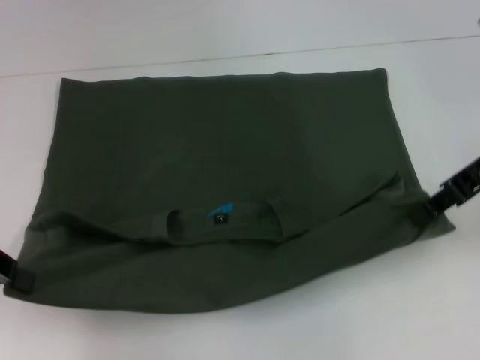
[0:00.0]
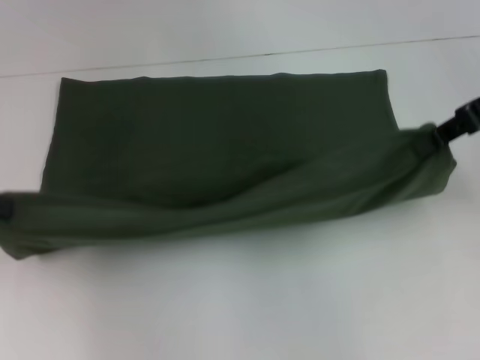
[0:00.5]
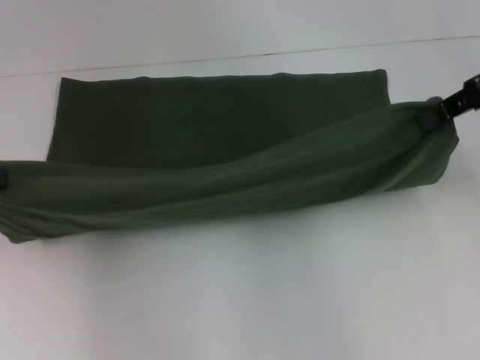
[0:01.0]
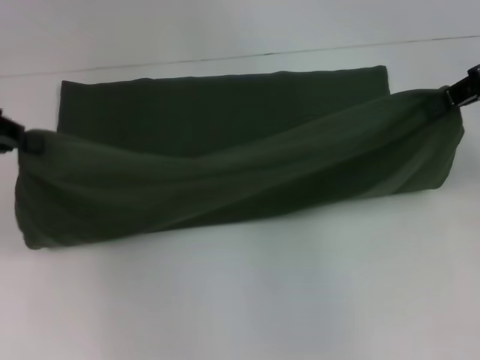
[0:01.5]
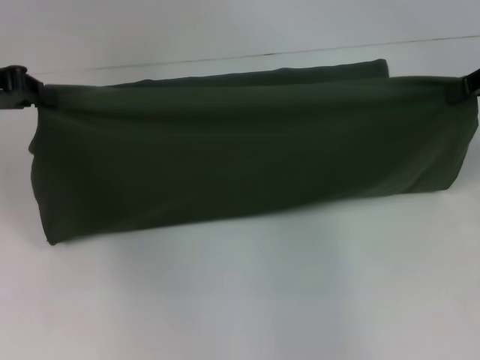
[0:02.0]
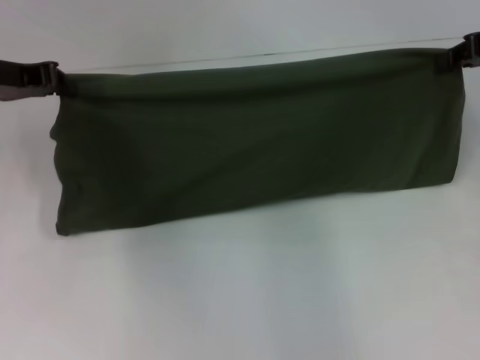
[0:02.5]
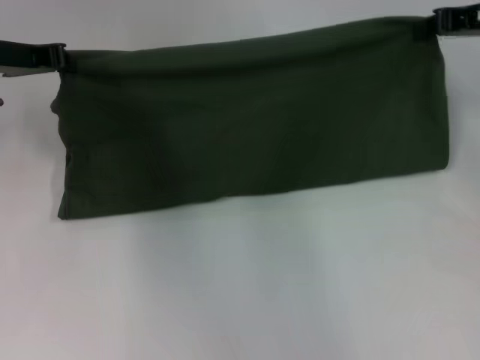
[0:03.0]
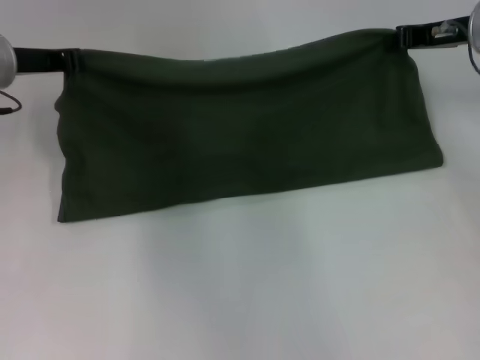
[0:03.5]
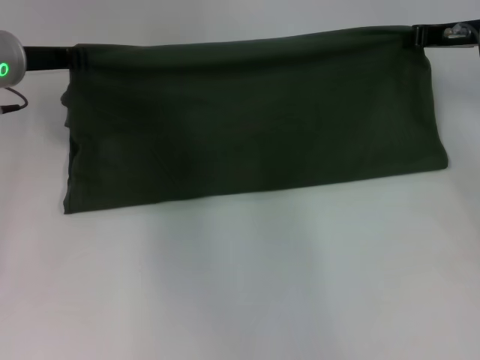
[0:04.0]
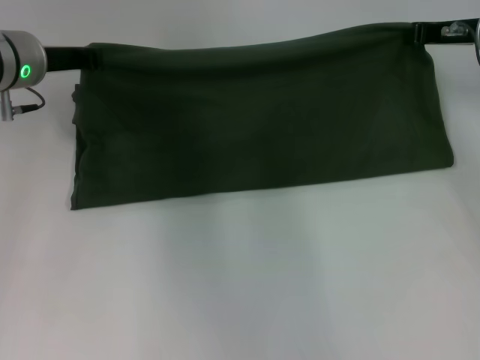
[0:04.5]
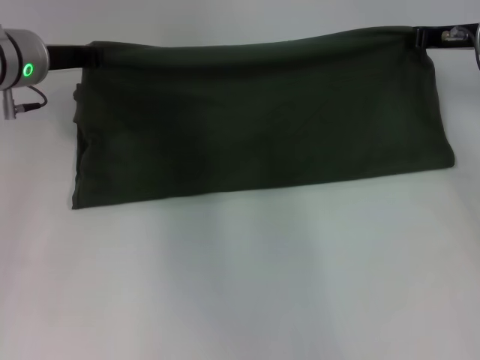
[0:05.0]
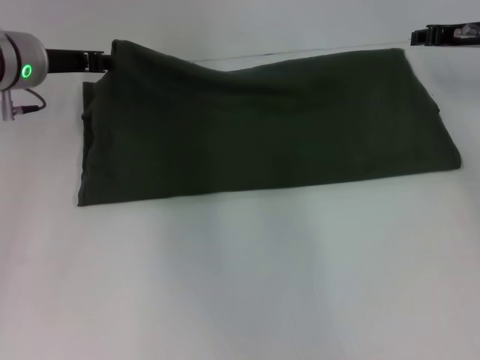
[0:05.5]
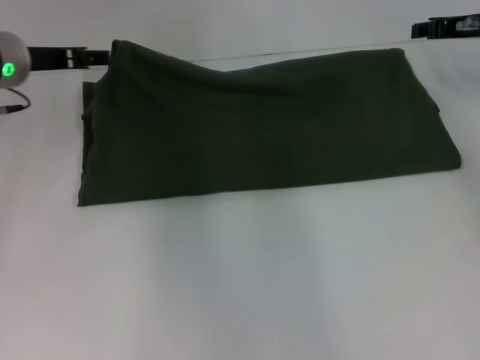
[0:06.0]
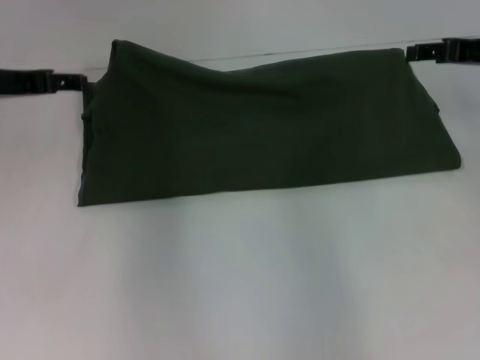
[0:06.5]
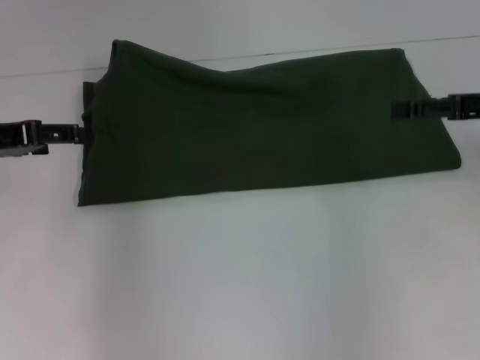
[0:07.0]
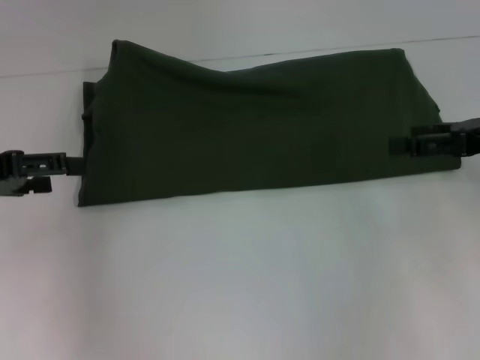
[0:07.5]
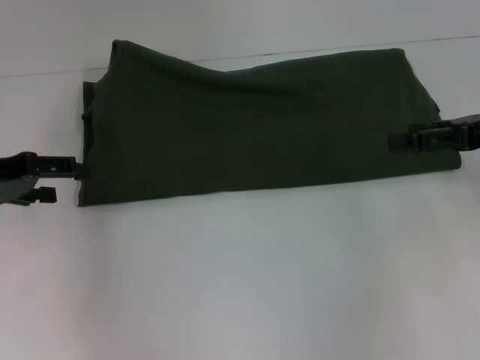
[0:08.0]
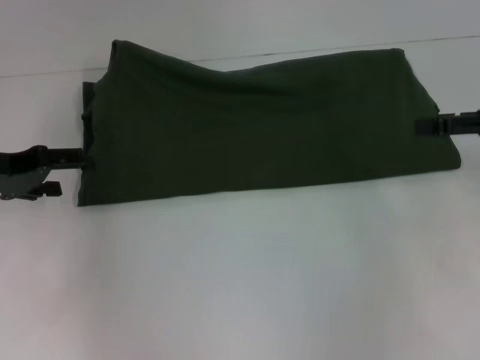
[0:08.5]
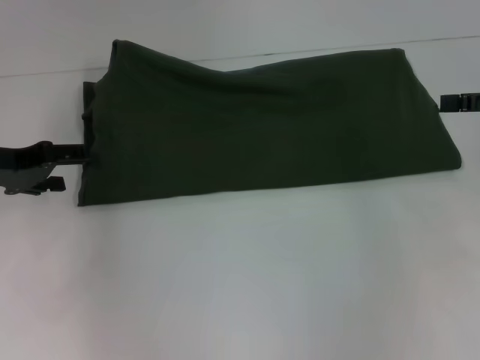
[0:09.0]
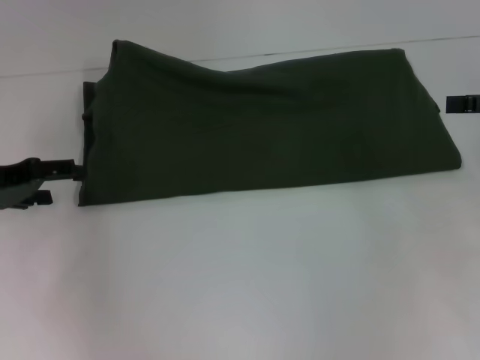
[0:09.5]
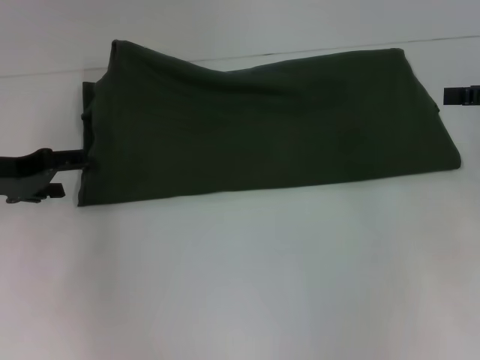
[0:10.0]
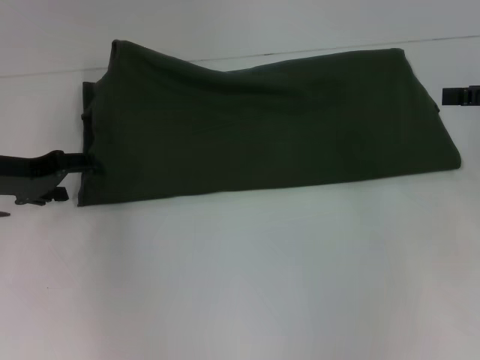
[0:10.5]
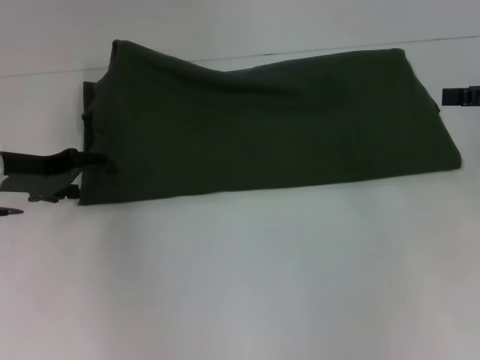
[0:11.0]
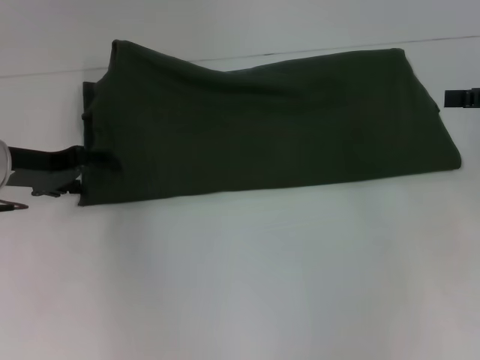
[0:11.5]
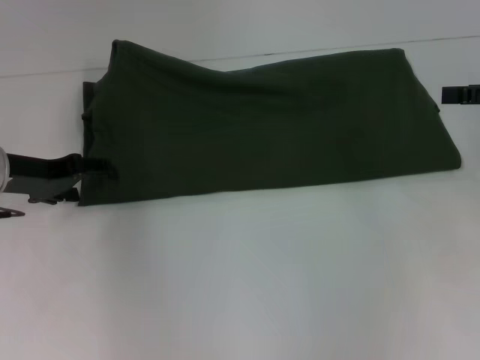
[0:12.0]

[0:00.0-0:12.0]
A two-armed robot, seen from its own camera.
Step, 0.0 to 5.5 s: Fold the clothes with your right hand.
0.0 to 2.0 s: The left gripper heads forward, covering approximately 10 cm, while the right gripper travels to the right by approximately 5 cm.
2.0 to 4.0 s: The right gripper shifts approximately 10 cm downward and forward; the left gripper travels to the right, forward and downward by about 10 cm.
4.0 to 6.0 s: The right gripper opens. Meanwhile the left gripper opens.
6.0 to 8.0 s: The left gripper moves backward and to the left, roughly 15 cm. The right gripper travels backward by about 15 cm, and opens up.
8.0 to 10.0 s: The grippers make only small movements.
10.0 to 12.0 s: The grippers stay close to where they were, moving slightly.

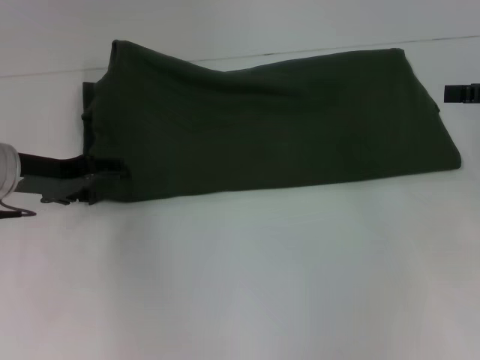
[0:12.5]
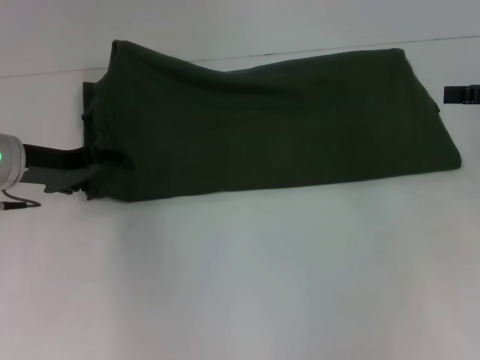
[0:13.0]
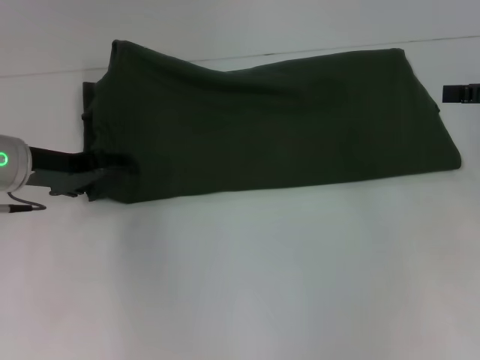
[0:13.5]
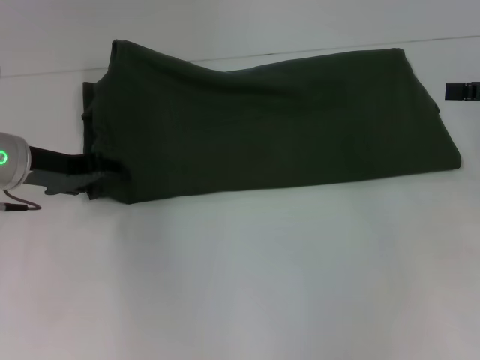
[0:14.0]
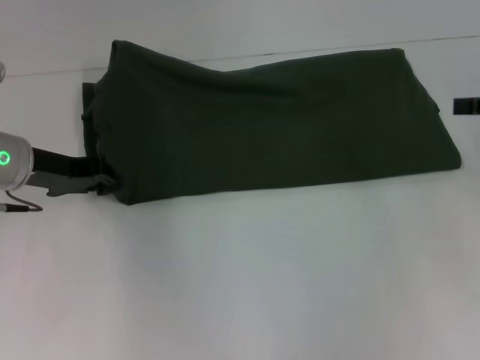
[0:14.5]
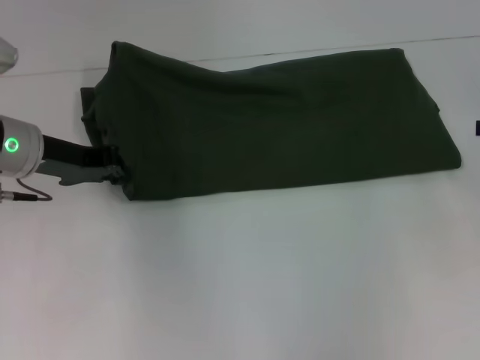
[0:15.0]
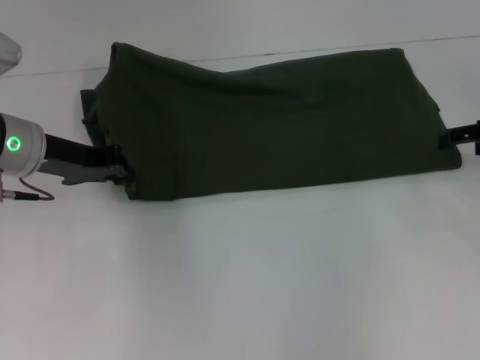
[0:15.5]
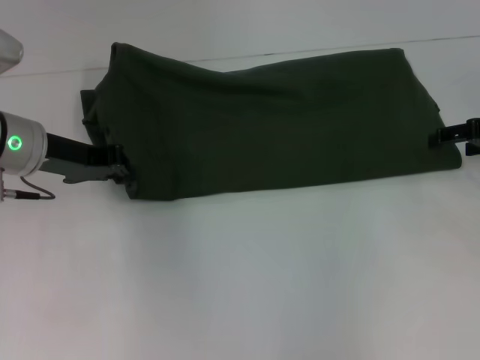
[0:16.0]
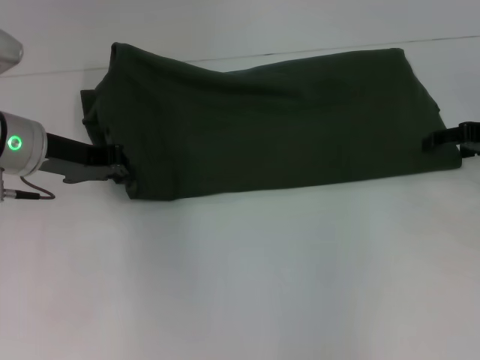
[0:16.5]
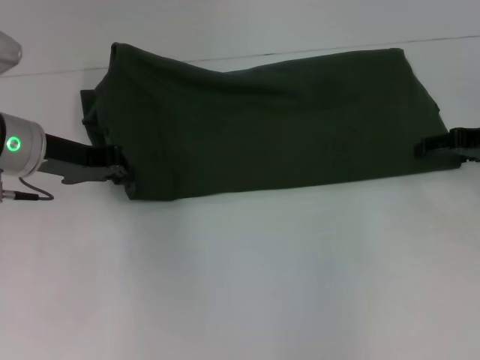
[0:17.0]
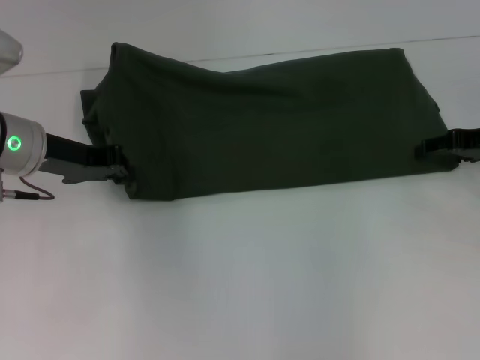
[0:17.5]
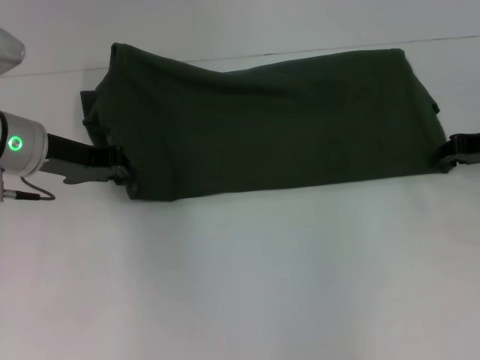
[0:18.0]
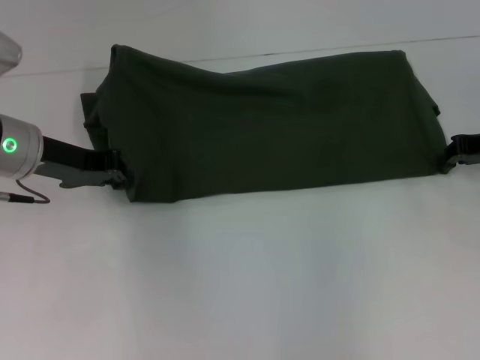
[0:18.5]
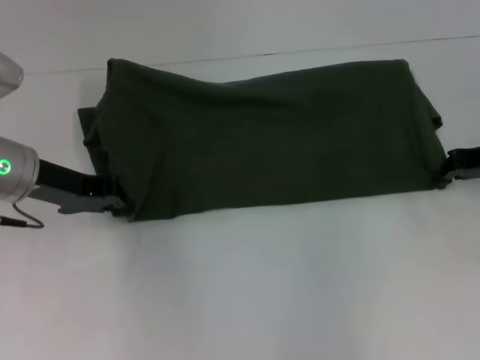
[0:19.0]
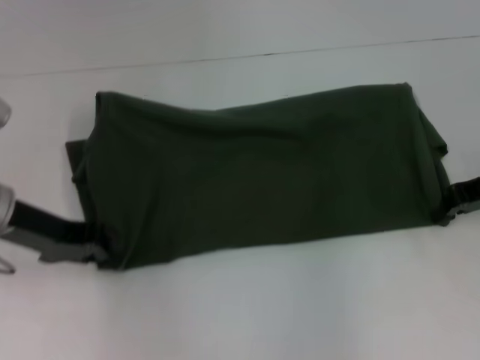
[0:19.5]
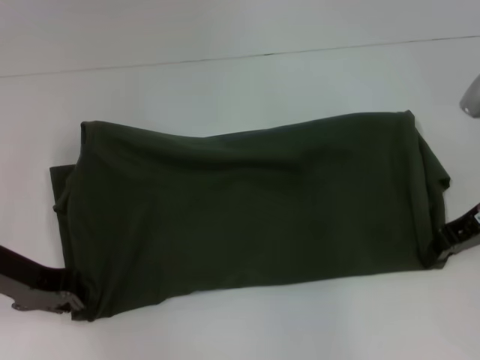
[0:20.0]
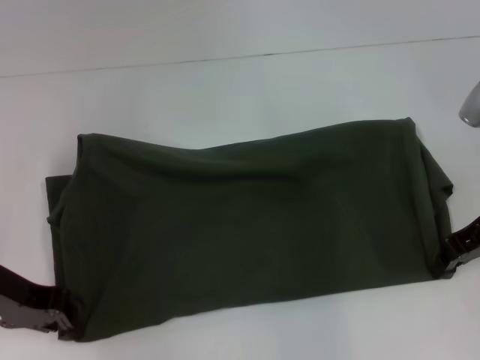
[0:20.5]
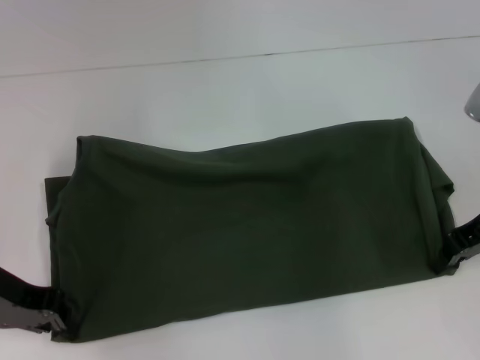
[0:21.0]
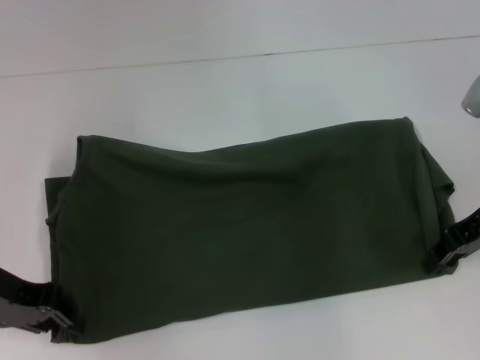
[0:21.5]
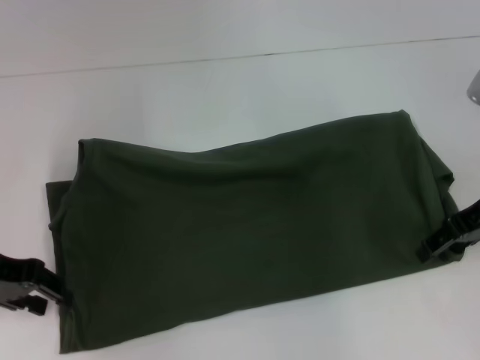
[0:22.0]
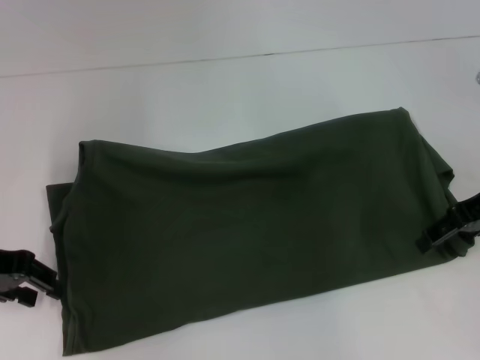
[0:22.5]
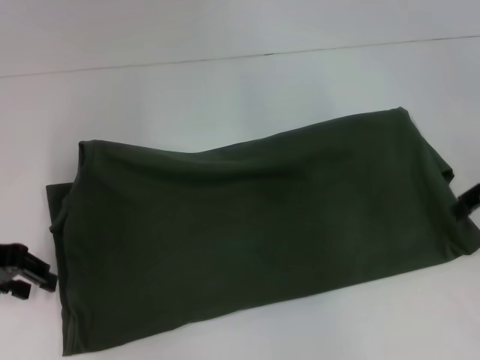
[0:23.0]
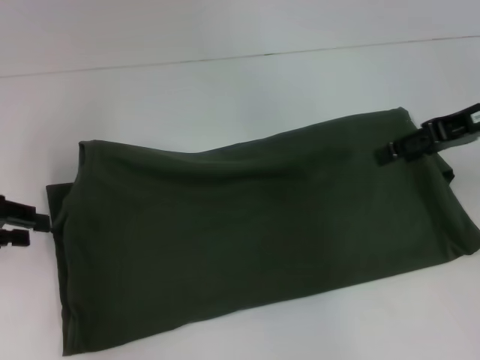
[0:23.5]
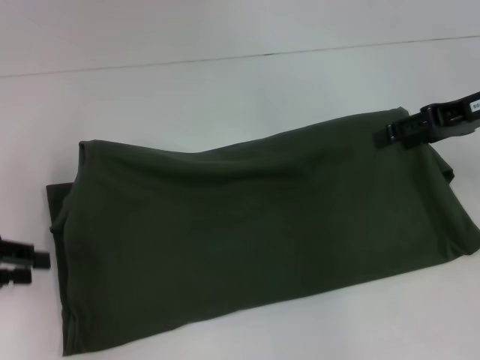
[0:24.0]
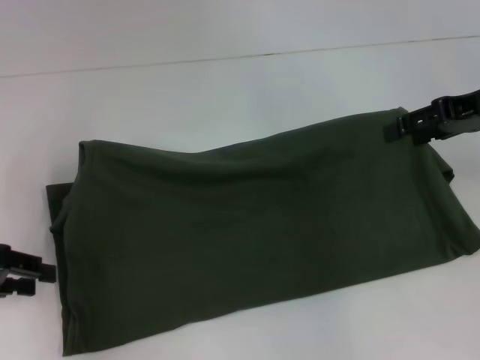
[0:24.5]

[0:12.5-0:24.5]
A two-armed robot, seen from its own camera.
12.5 to 14.5 s: The left gripper closes its fingers.
14.5 to 16.5 s: The right gripper shifts about 10 cm downward and forward. Meanwhile the left gripper closes its fingers.
16.5 to 18.5 s: The right gripper closes its fingers.
18.5 to 20.5 s: The right gripper ends up about 5 cm from where it was. The left gripper heads backward, covering roughly 10 cm.
20.5 to 22.5 s: The left gripper opens. Meanwhile the right gripper opens its fingers.
22.5 to 24.5 s: The right gripper travels upward by approximately 5 cm, while the left gripper moves roughly 5 cm.

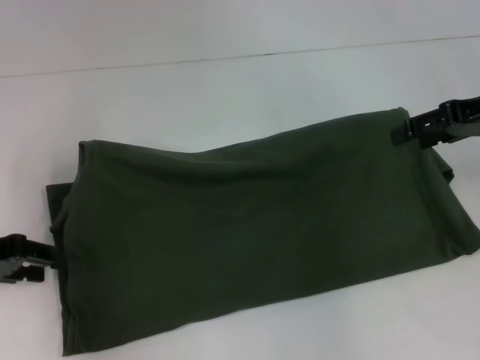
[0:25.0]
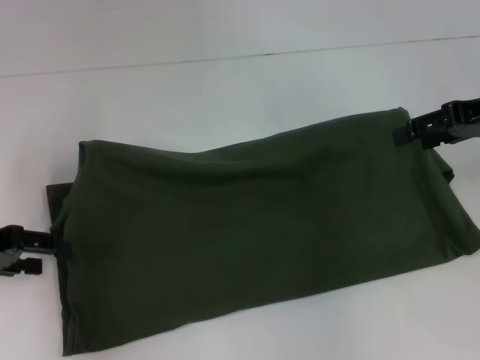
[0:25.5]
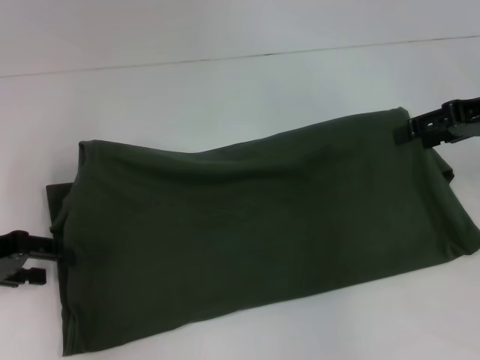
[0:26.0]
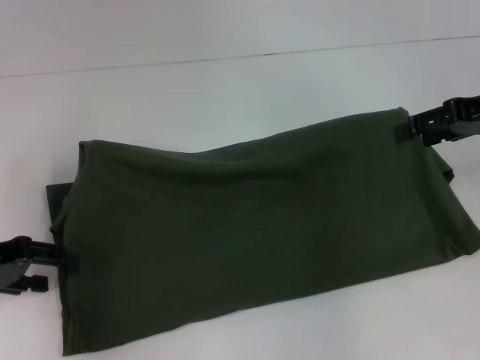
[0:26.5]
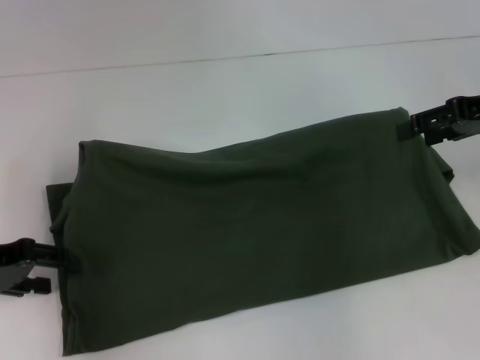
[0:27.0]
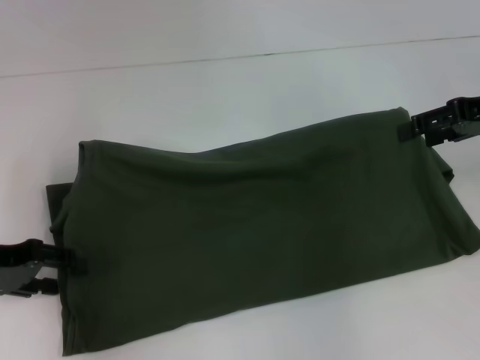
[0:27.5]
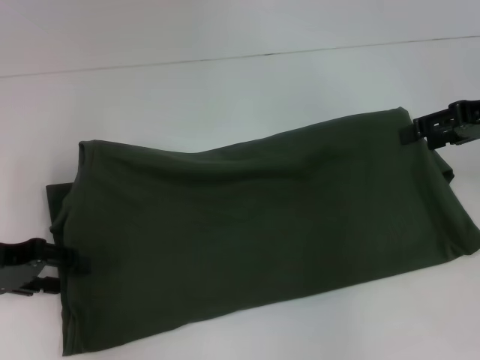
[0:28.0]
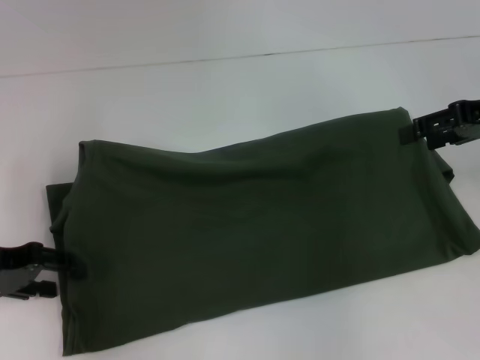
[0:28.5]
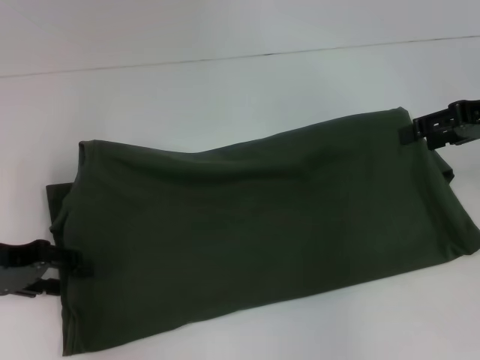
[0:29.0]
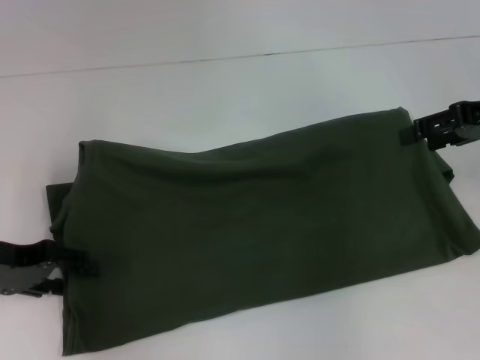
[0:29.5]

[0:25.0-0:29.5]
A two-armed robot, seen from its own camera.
25.0 to 29.5 s: There are only small adjustments of the grippers.
